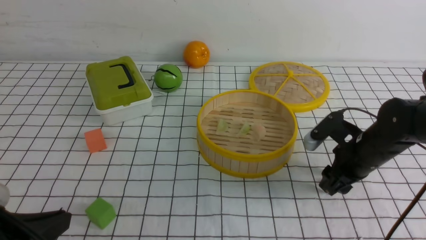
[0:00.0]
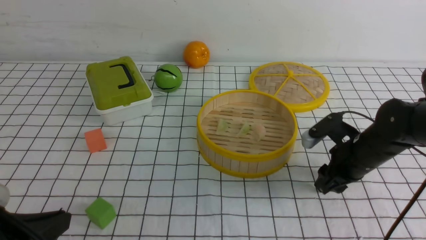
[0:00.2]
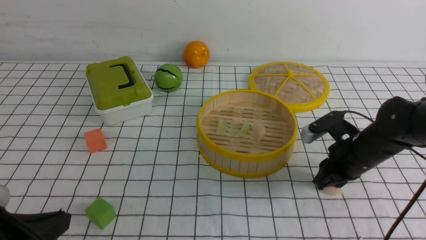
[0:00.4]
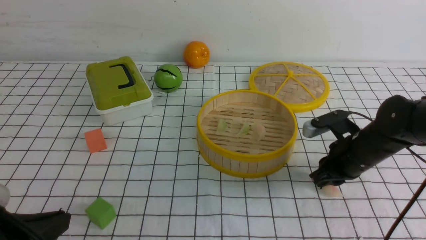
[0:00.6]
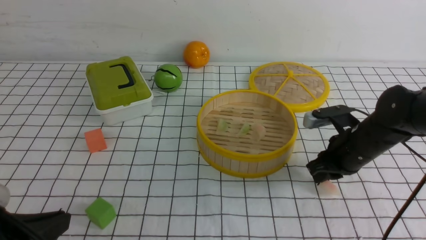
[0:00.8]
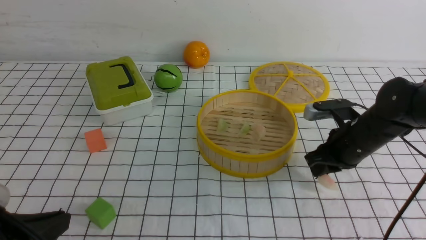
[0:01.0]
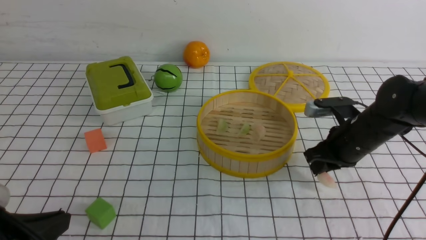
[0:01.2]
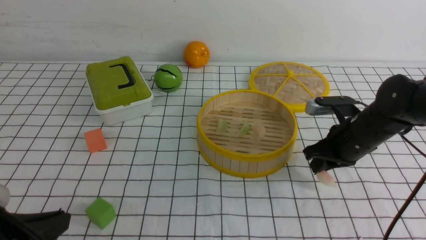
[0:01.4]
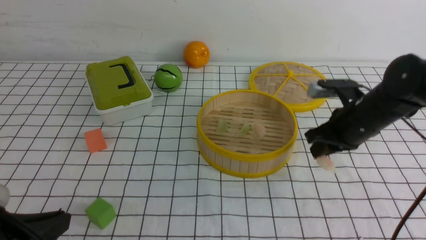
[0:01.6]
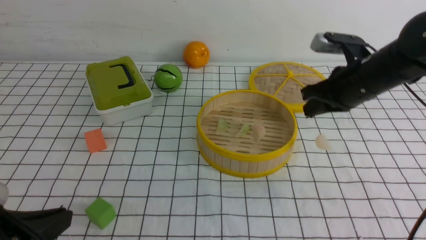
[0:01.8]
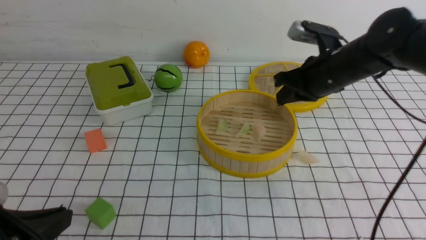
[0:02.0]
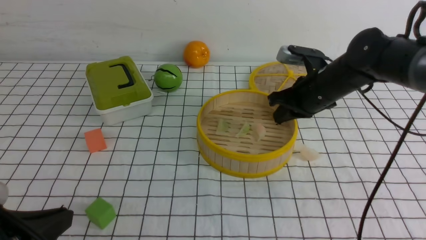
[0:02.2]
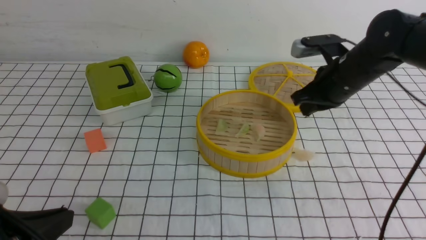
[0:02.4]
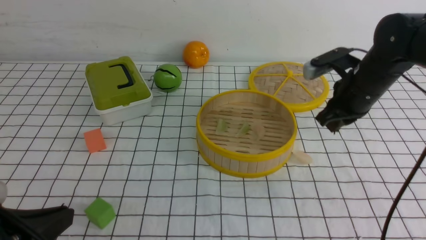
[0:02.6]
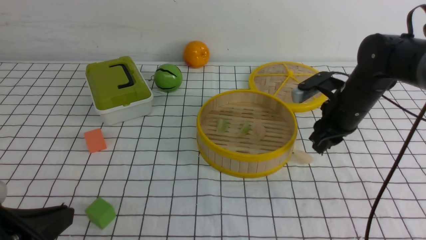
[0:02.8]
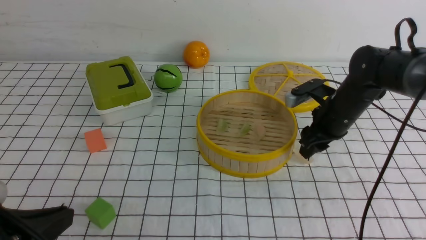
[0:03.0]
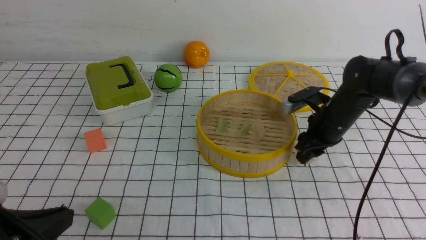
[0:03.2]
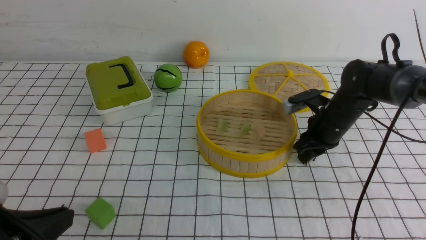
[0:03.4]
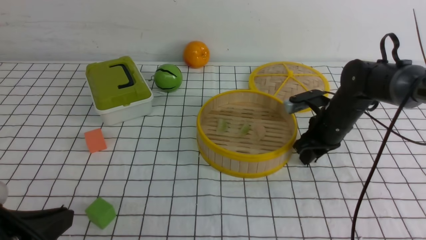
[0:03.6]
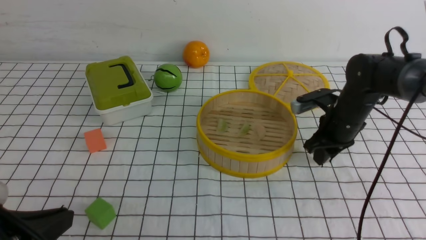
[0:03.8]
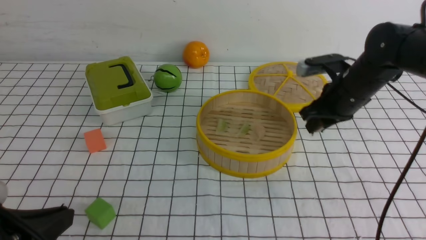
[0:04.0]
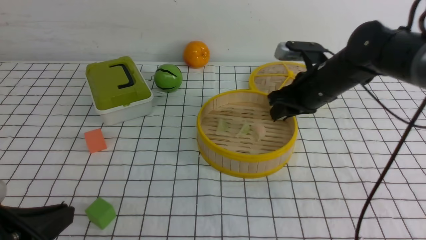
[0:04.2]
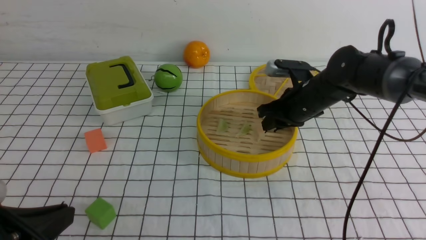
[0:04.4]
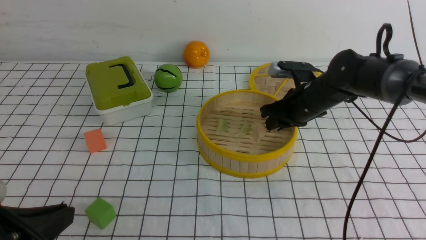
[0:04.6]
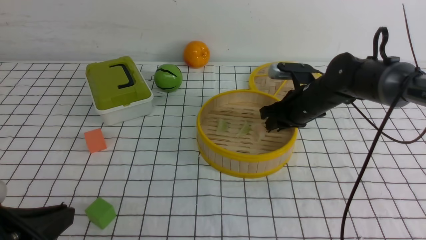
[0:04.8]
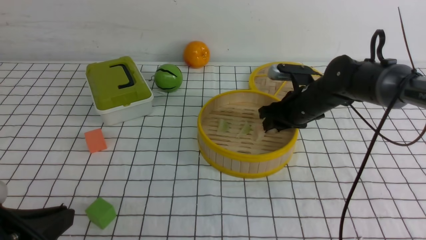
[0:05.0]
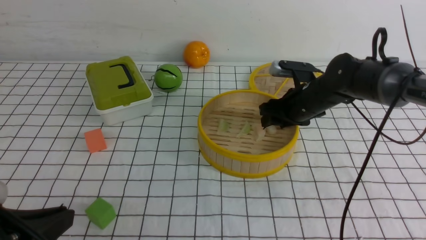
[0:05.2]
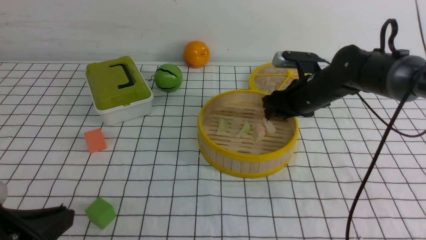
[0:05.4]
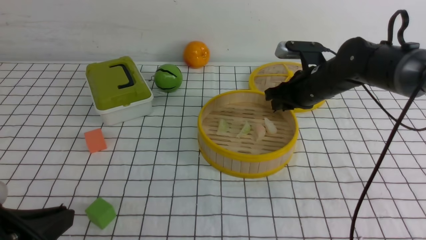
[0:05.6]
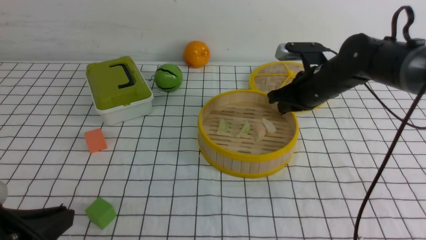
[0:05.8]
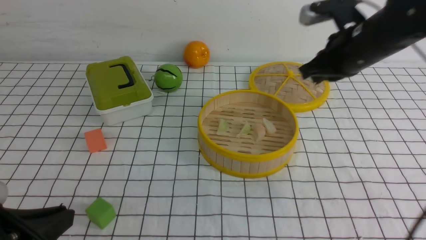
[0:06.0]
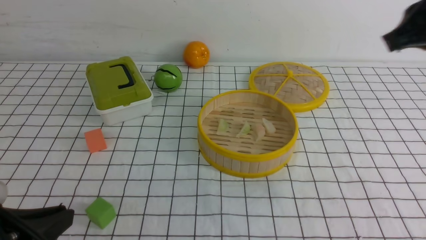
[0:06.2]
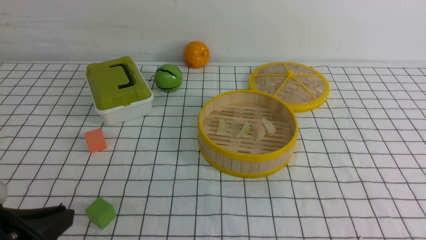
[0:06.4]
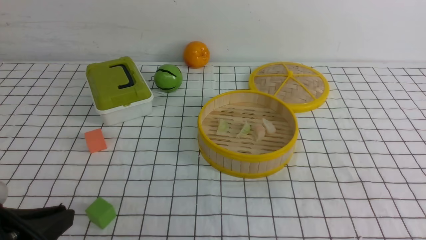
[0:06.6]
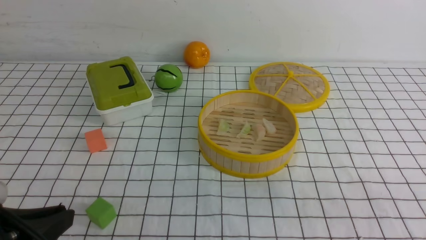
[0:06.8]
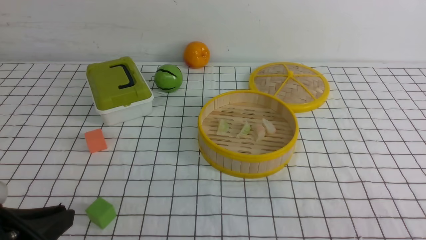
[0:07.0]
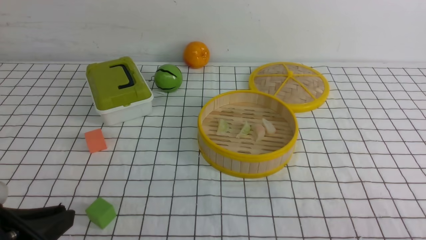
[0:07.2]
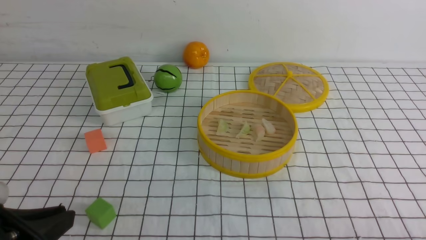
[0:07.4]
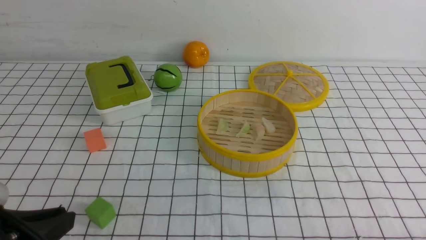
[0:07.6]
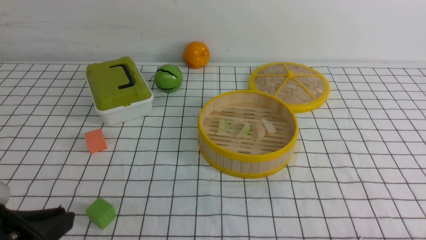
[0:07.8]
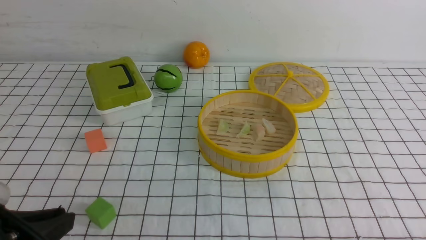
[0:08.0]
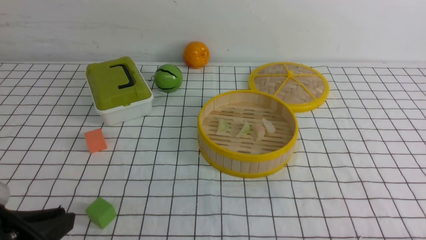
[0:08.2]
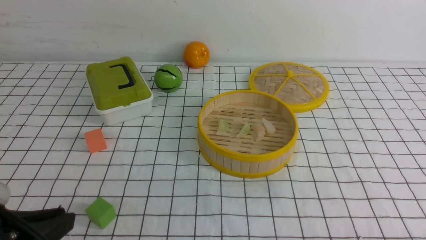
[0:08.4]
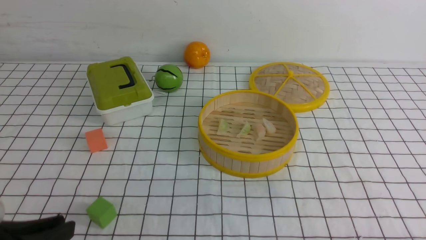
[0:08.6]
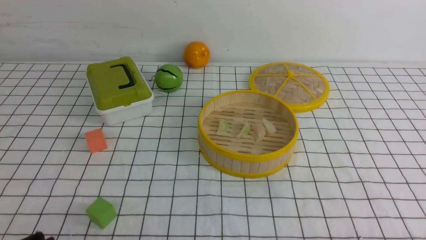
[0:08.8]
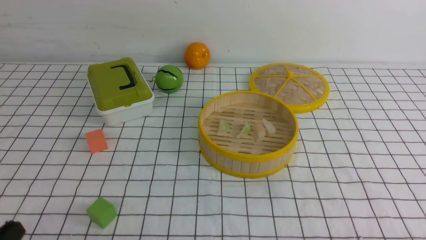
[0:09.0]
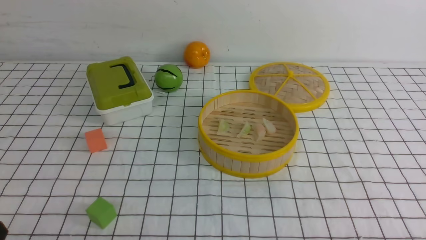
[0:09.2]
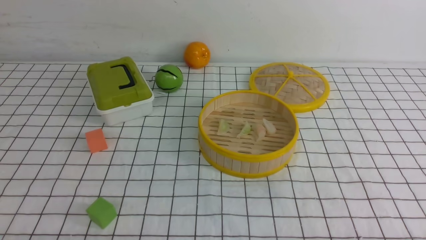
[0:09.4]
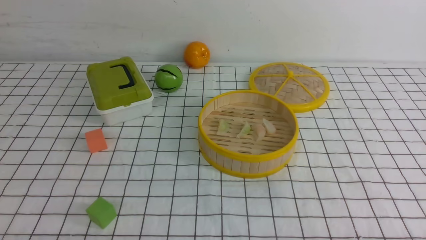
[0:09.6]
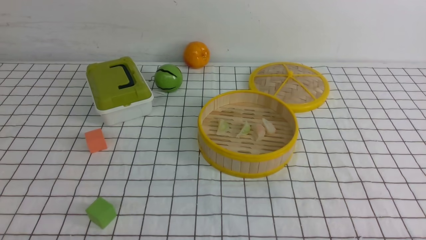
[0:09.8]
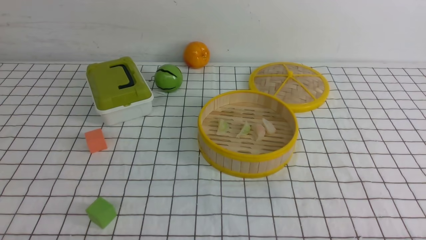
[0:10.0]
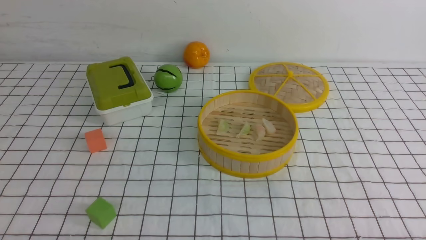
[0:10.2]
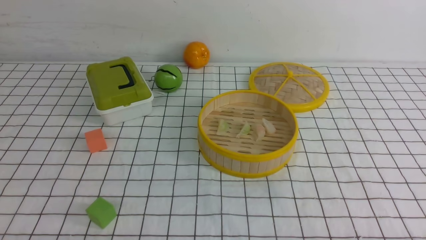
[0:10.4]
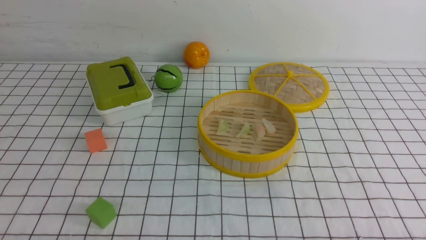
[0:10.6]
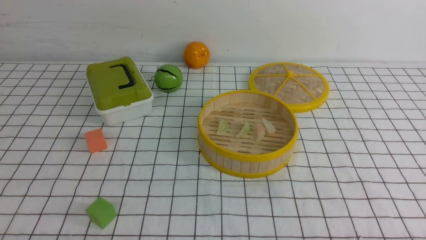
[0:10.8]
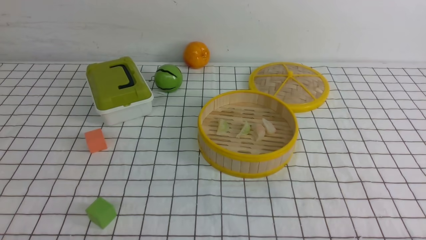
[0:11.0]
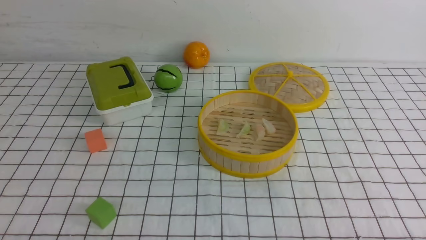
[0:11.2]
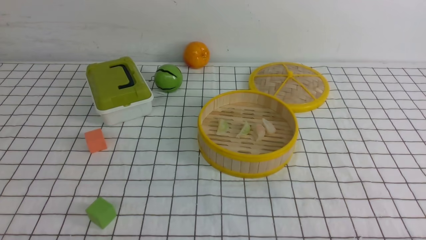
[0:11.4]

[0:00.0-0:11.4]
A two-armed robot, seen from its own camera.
Task of the whole recording: put the dumplings into the steamer on the table with the white tablecloth.
Step, 0:00.0 to 0:03.4: use the right arm to grab a dumpling.
Step, 0:03.6 to 0:05.4: use the right arm to put the dumpling into the steamer.
0:00.0 to 0:01.4: The right gripper closes its fingers.
0:01.4 to 0:02.8: The right gripper goes approximately 5 cm forward.
0:04.2 to 0:05.6: The right gripper opens, then closes once more.
0:05.6 to 0:07.2: The right gripper moves backward, some 35 cm, and closes its fingers.
0:08.6 to 0:10.0: The left gripper goes roughly 10 cm downward.
0:10.0 to 0:11.4: Neither gripper changes place.
